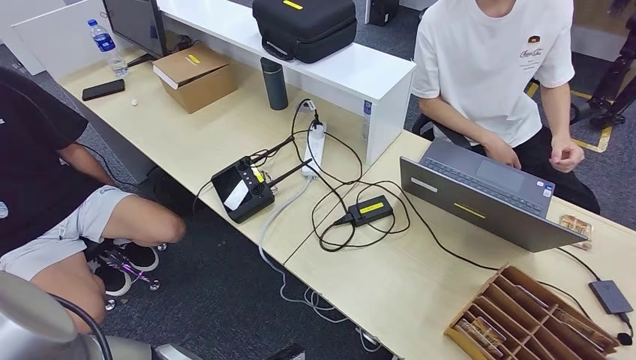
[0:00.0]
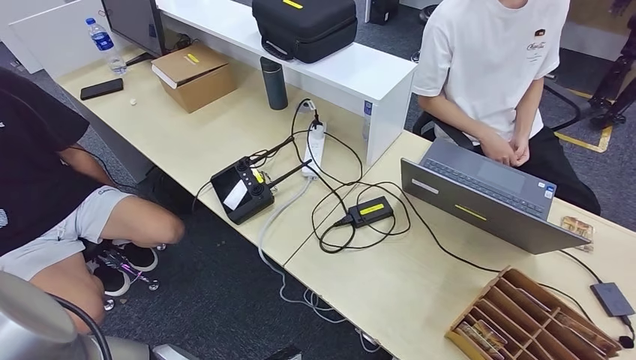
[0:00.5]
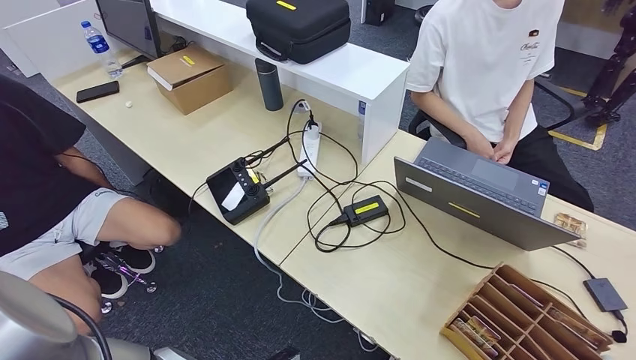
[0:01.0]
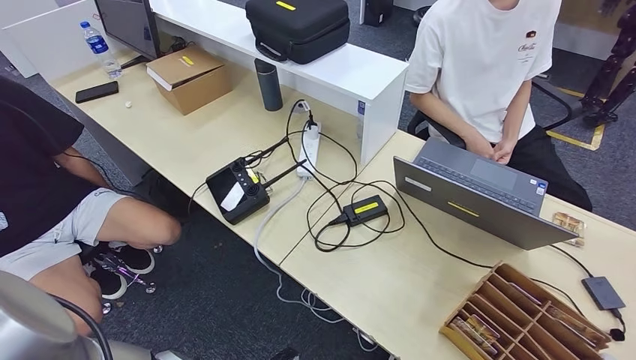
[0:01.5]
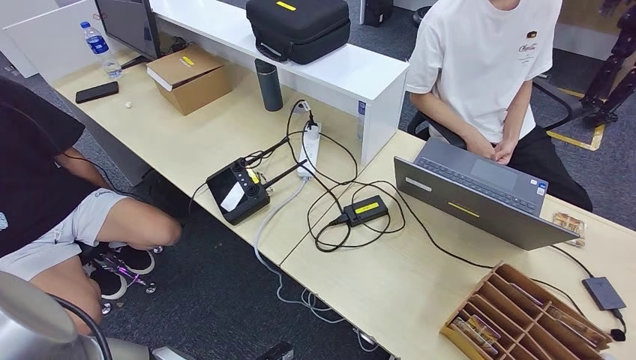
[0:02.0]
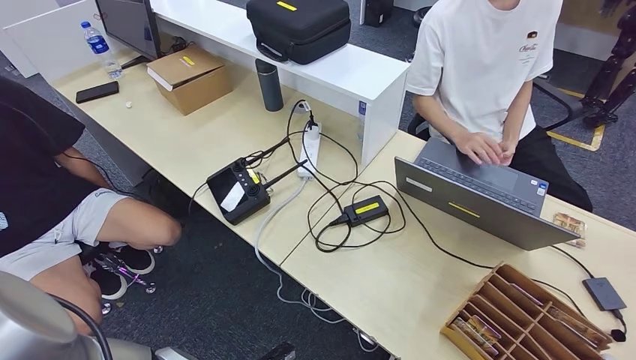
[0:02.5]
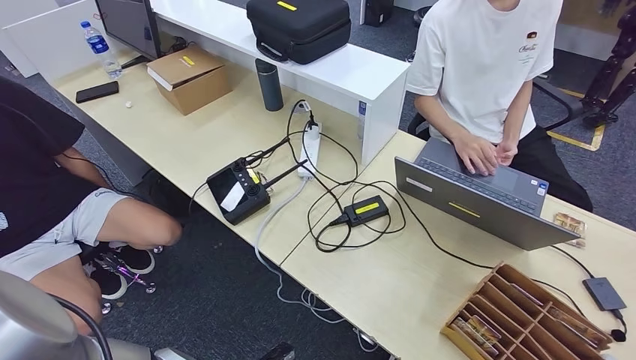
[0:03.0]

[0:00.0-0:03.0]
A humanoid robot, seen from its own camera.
Step, 0:00.0 to 0:03.0: Hand the room key to the person.
0:01.5 to 0:03.0: There are only small adjustments of the hands.

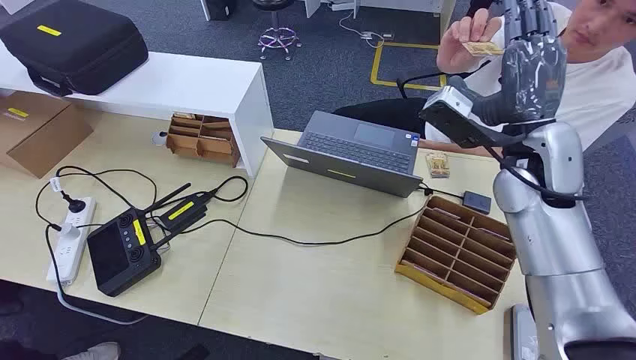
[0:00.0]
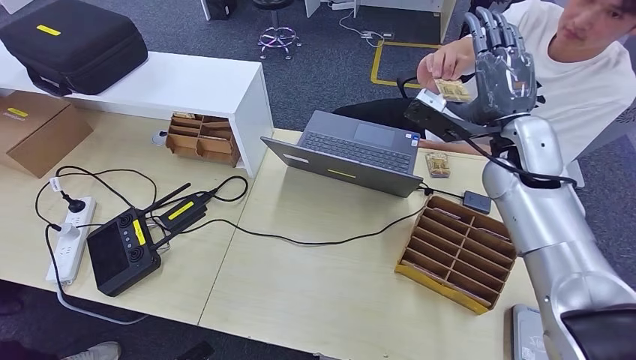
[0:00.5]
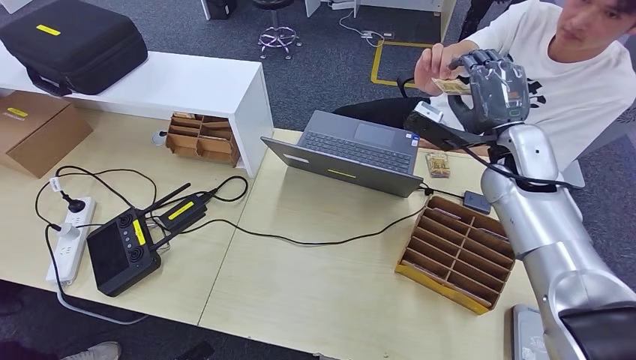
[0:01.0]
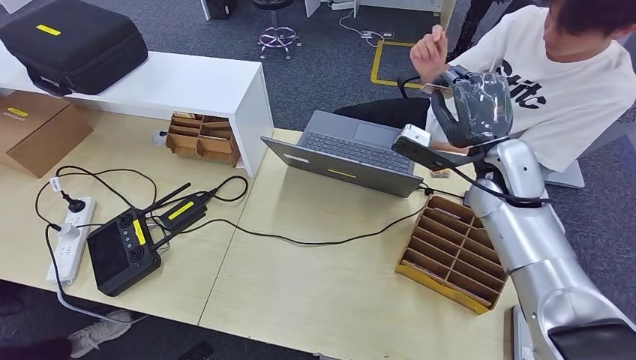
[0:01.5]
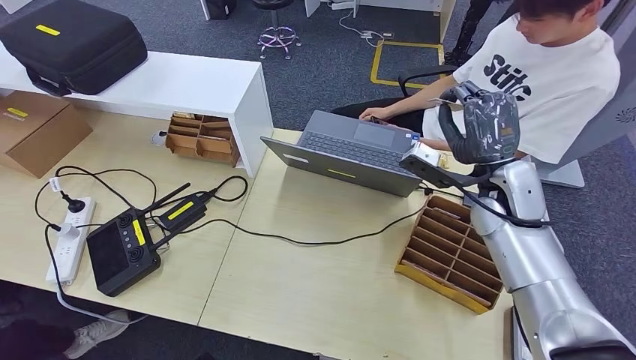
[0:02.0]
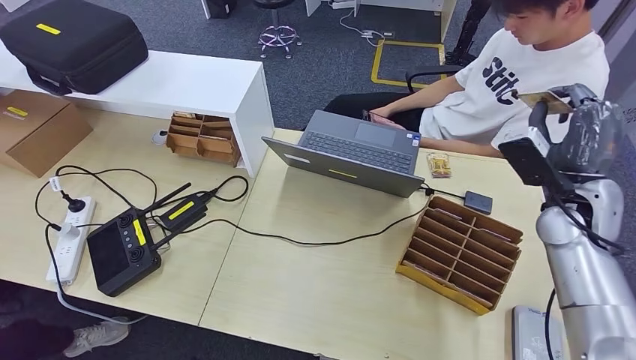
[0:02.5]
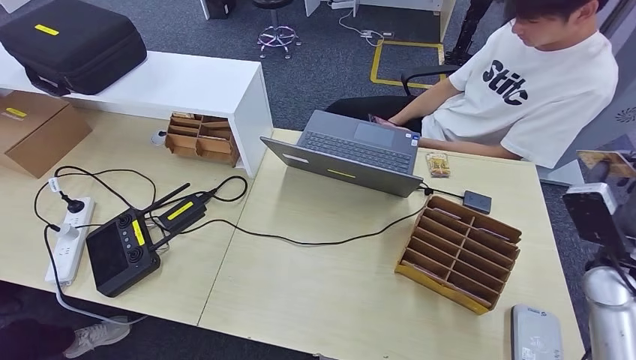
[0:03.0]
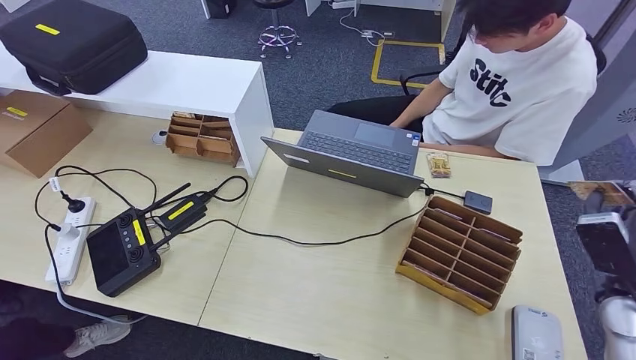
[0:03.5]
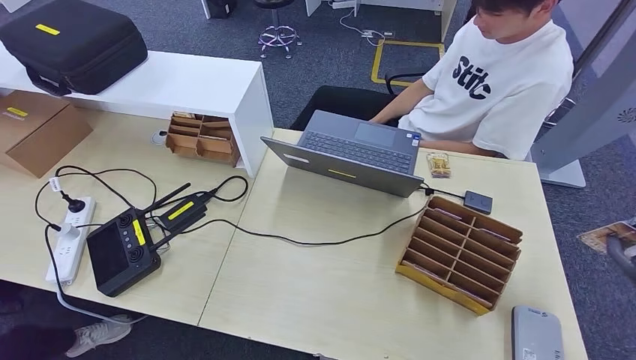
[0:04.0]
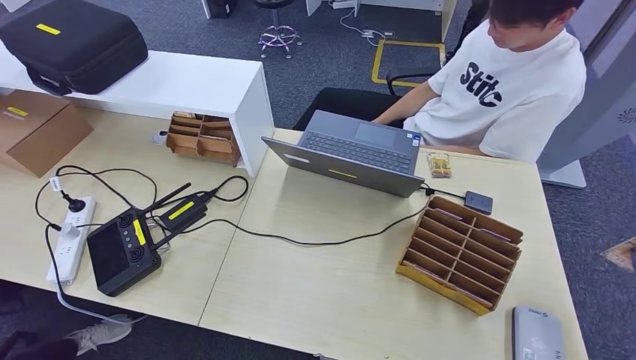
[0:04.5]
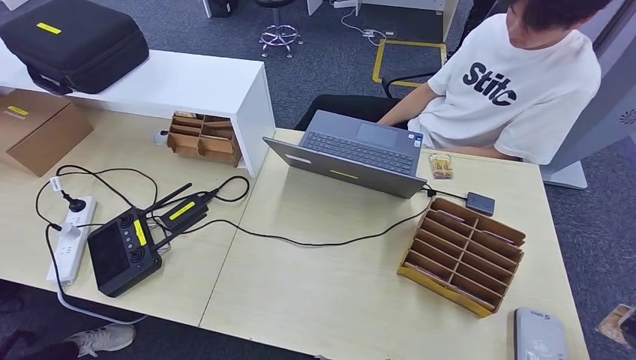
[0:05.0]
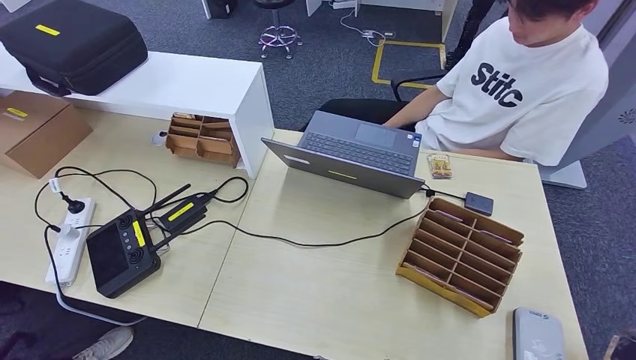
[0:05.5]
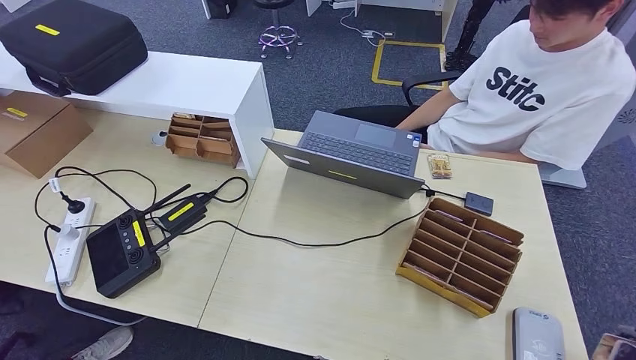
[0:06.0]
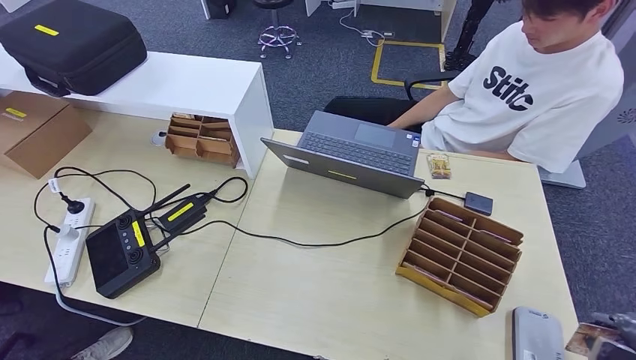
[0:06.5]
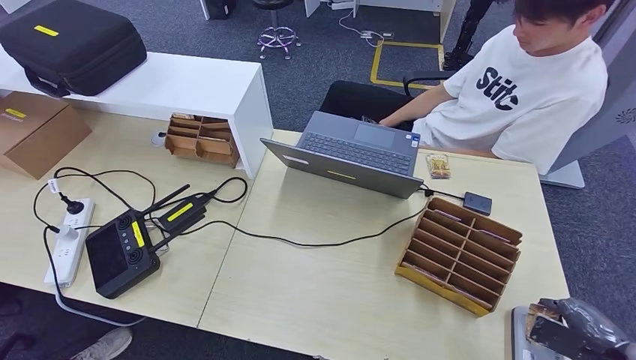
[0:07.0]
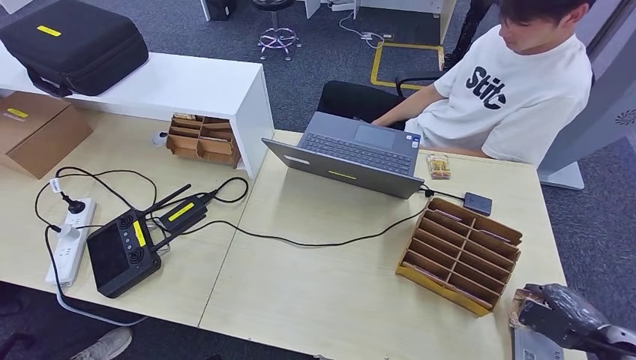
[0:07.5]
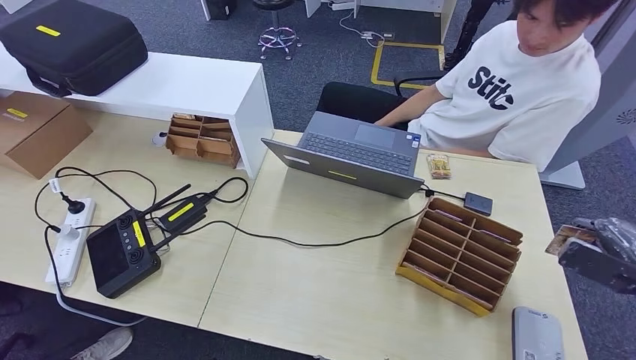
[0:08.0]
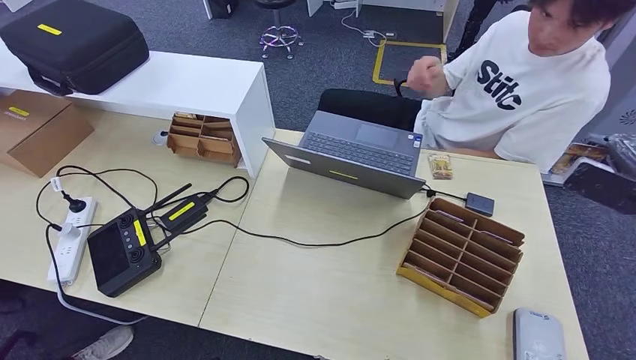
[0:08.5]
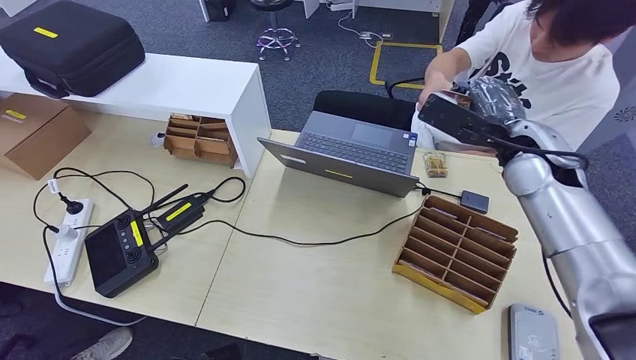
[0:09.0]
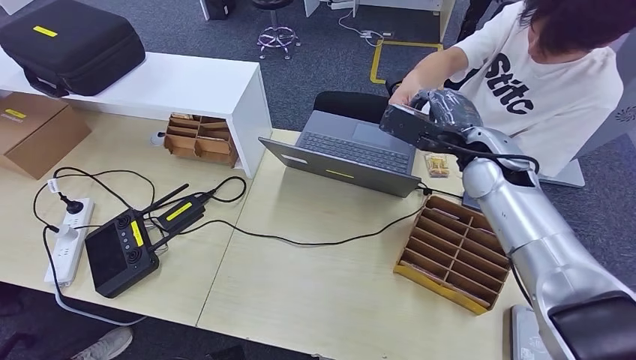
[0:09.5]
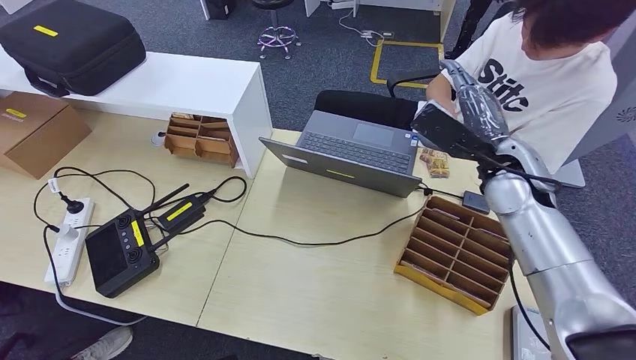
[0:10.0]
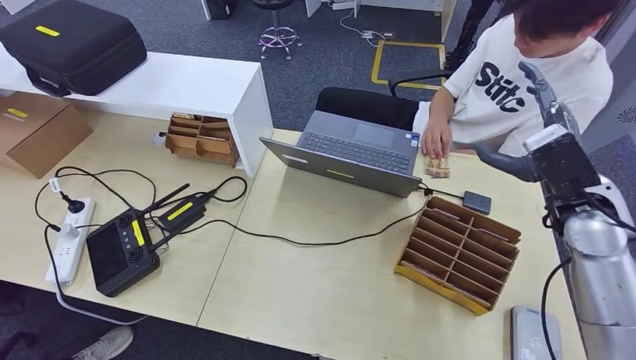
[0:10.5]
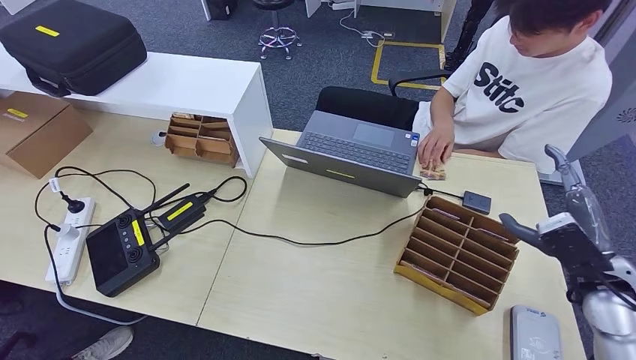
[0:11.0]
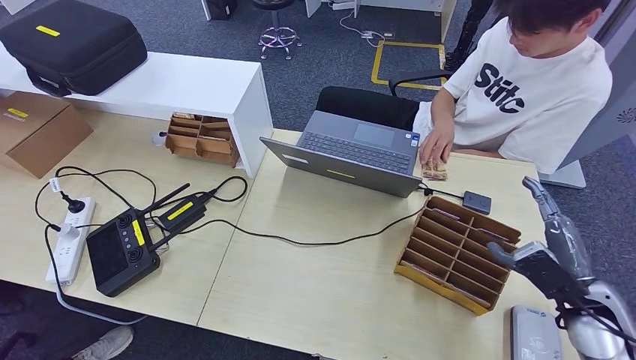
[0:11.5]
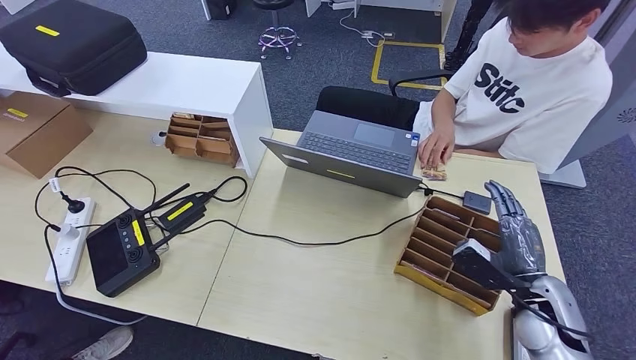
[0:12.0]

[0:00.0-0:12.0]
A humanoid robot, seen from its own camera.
Step, 0:00.0 to 0:01.5: Take the ID card from the person's hand.
Step, 0:02.0 to 0:06.0: Place the ID card on the card reader.
Step, 0:06.5 to 0:09.5: Hand the ID card to the person.
0:02.0 to 0:04.0: The right hand goes approximately 35 cm to the right and backward.
0:04.0 to 0:06.0: The right hand heads backward, covering about 10 cm.
0:06.0 to 0:08.0: The right hand goes about 15 cm forward and to the left.
0:08.0 to 0:10.0: The right hand heads to the left and forward, covering roughly 30 cm.
0:10.0 to 0:12.0: The right hand shifts about 25 cm downward, backward and to the right.

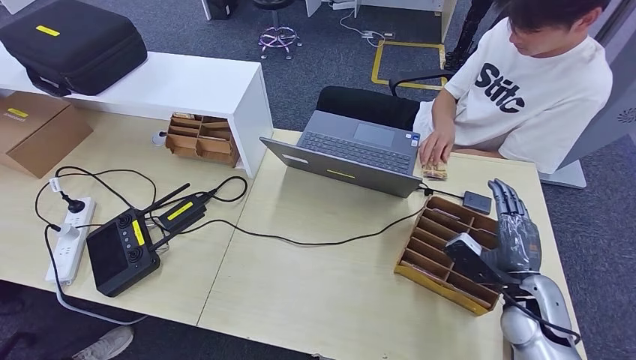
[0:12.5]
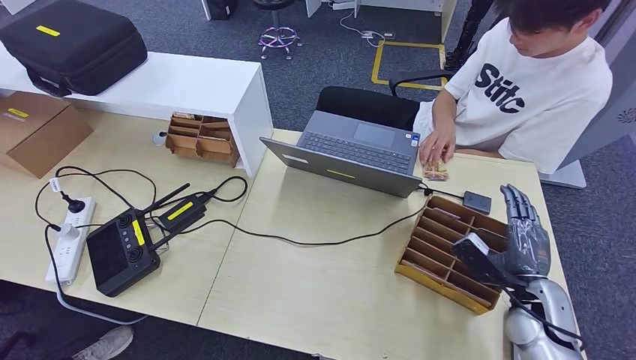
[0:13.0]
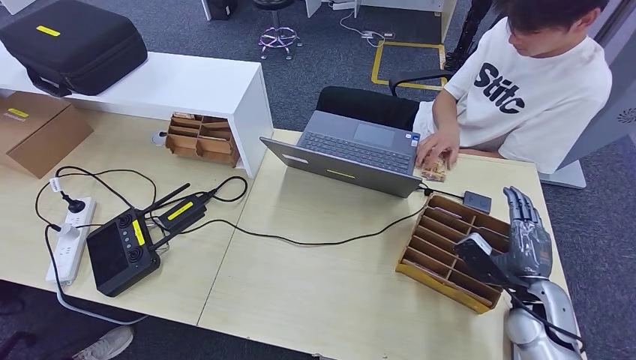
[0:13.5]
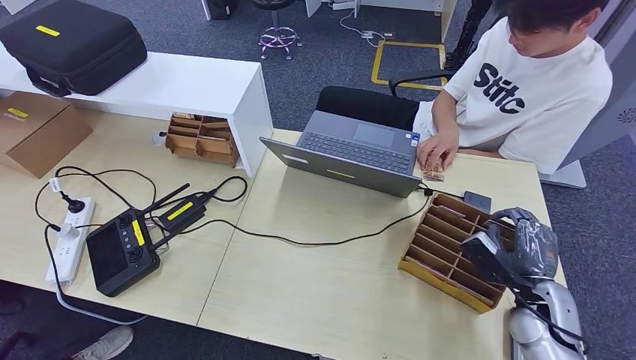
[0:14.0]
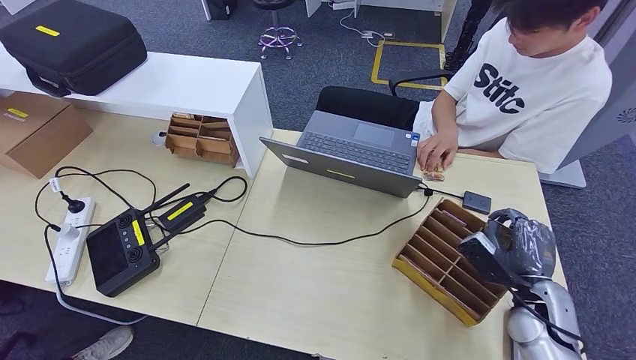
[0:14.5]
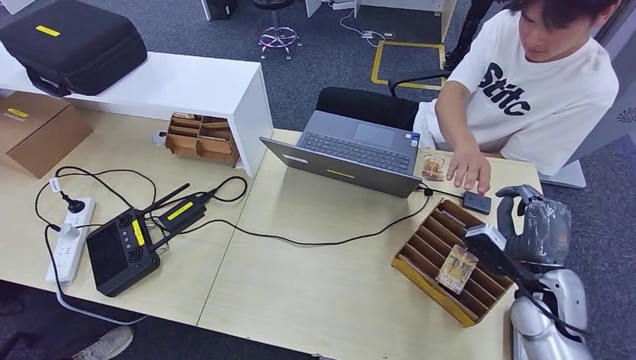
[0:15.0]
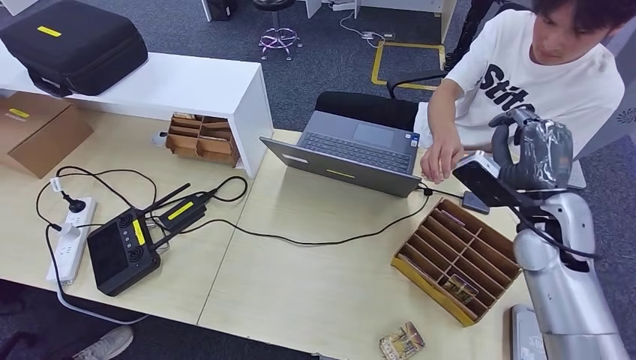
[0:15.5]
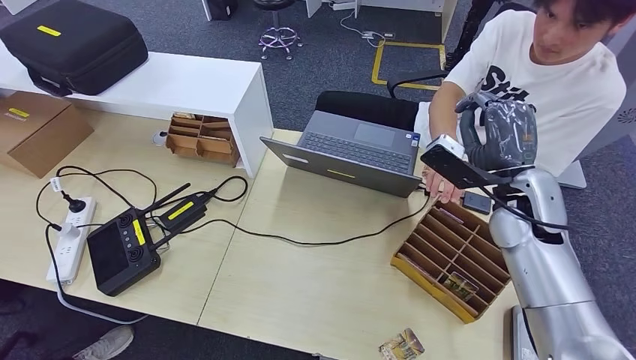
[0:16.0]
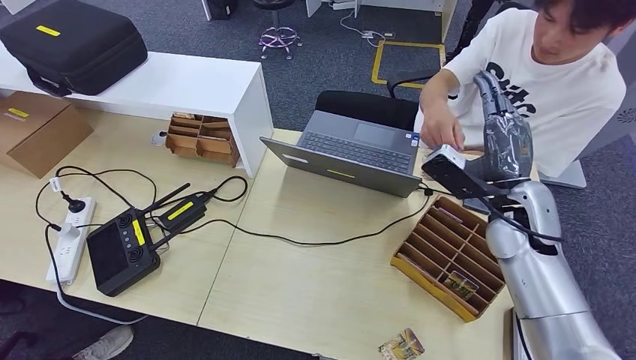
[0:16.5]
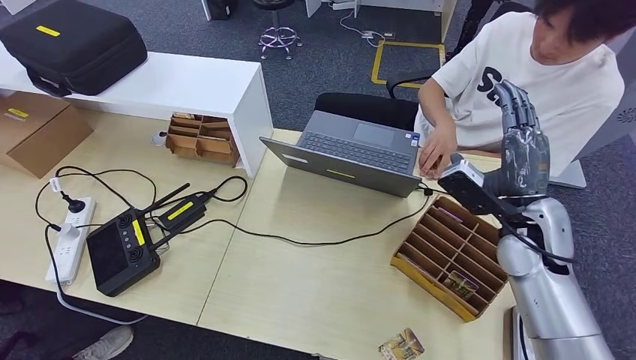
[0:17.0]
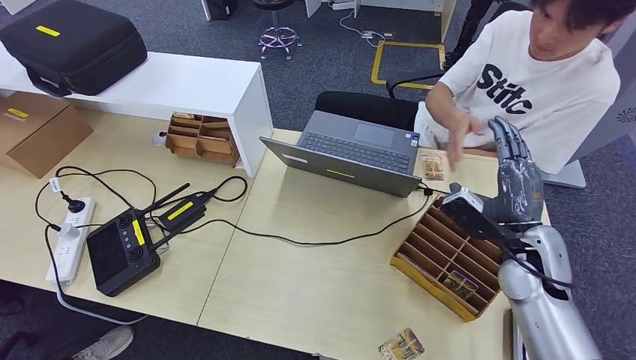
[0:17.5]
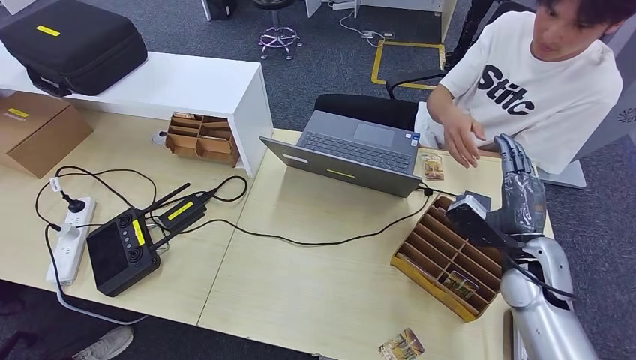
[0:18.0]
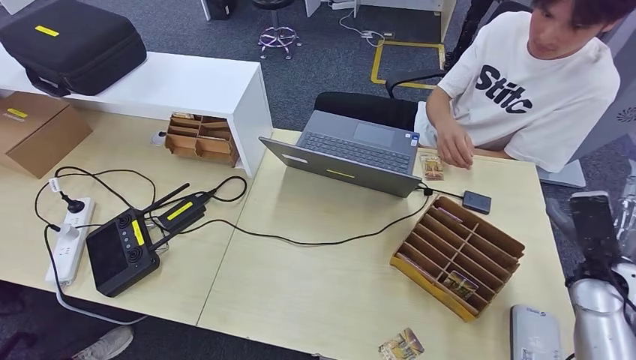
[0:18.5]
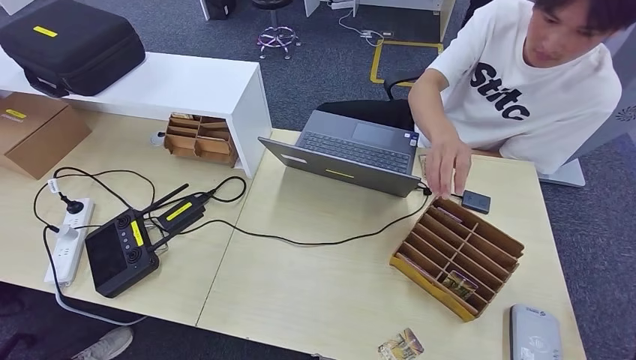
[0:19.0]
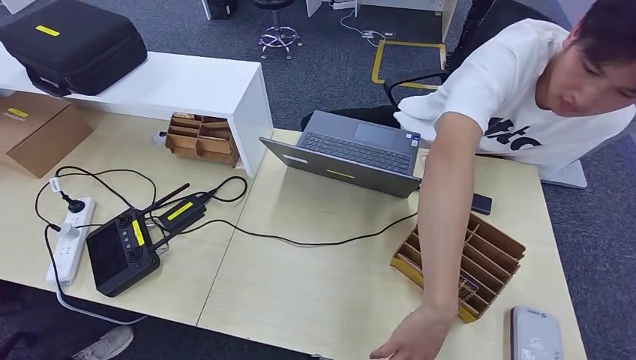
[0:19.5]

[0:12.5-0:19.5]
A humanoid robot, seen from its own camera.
Step, 0:12.5 to 0:15.5: Pick up the room key from the key card box.
0:12.5 to 0:14.5: The hands stay close to where they were, moving slightly.
0:14.5 to 0:16.0: The right hand shifts about 20 cm upward, forward and to the left.
0:16.0 to 0:17.5: The right hand shifts approximately 5 cm downward.
0:17.5 to 0:19.5: The right hand moves to the right, downward and backward, approximately 35 cm.
